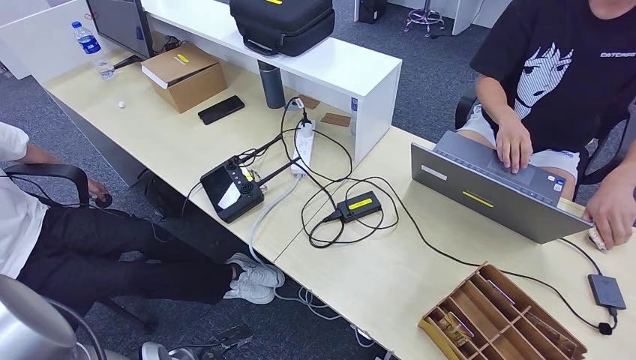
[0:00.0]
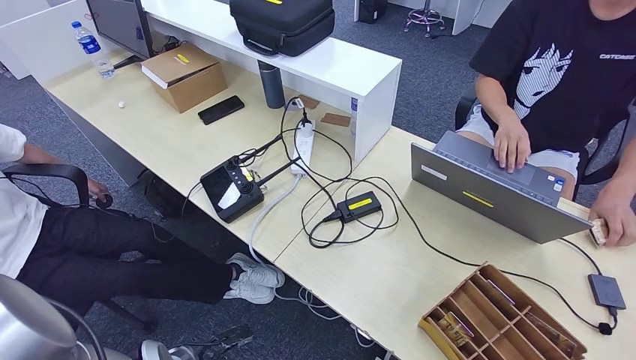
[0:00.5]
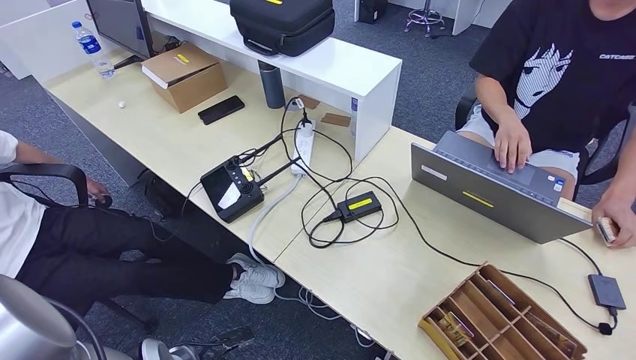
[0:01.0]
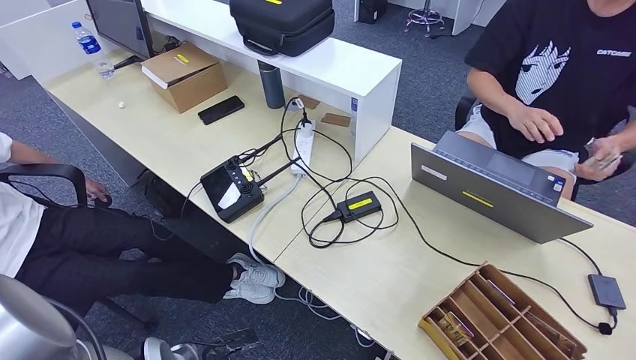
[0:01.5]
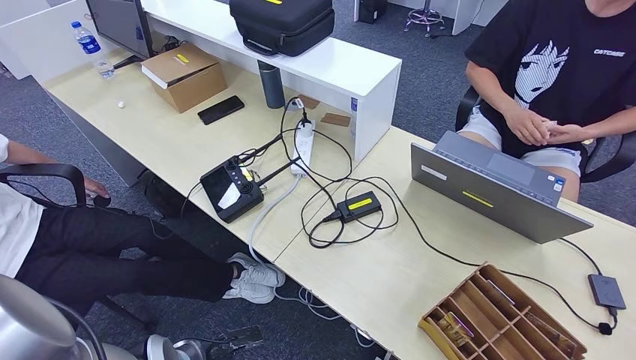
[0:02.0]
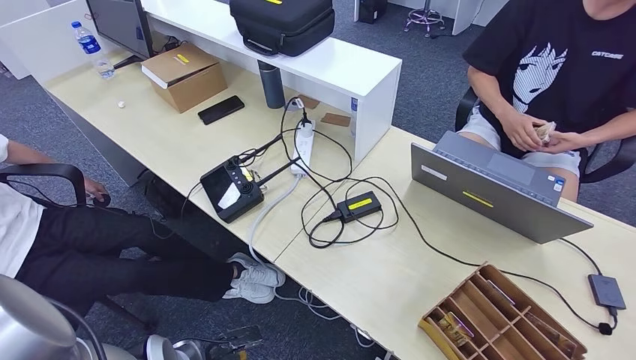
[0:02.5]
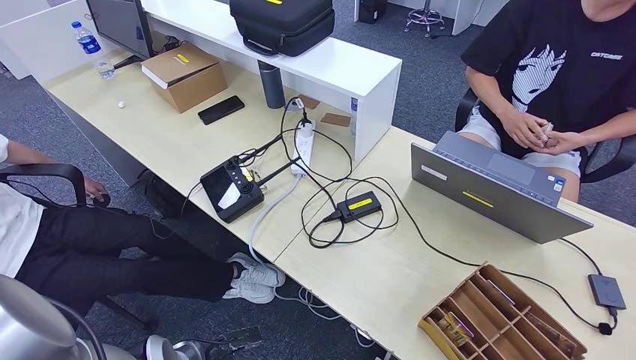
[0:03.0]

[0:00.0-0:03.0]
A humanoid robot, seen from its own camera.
Step, 0:00.0 to 0:03.0: Hand the room key to the person.
0:00.0 to 0:01.5: The hands move only a little.
0:01.5 to 0:03.0: Both hands stay about where they are.

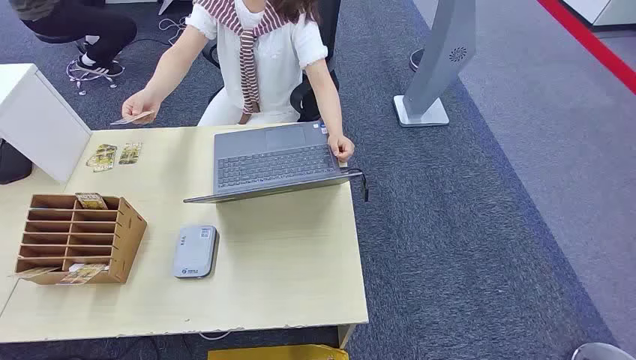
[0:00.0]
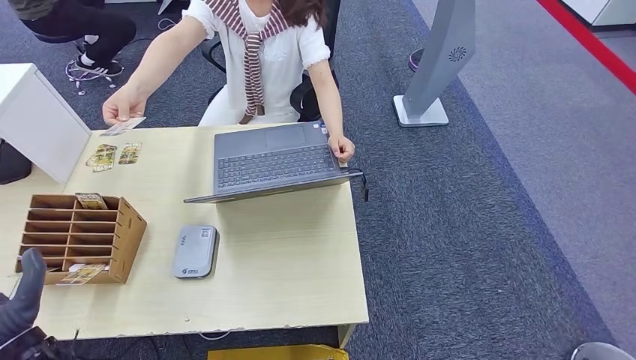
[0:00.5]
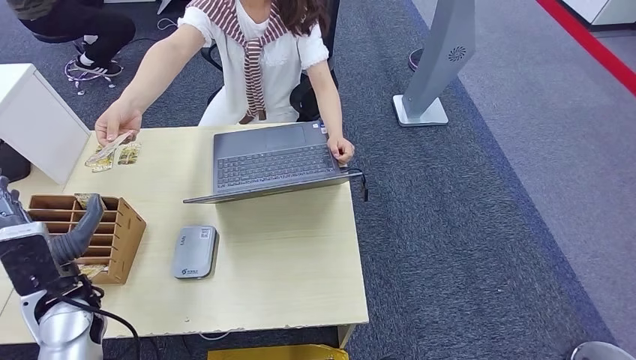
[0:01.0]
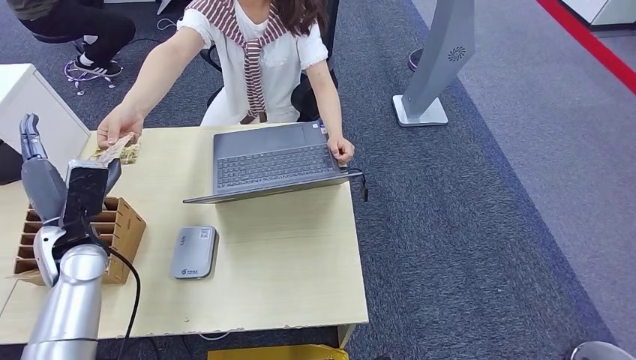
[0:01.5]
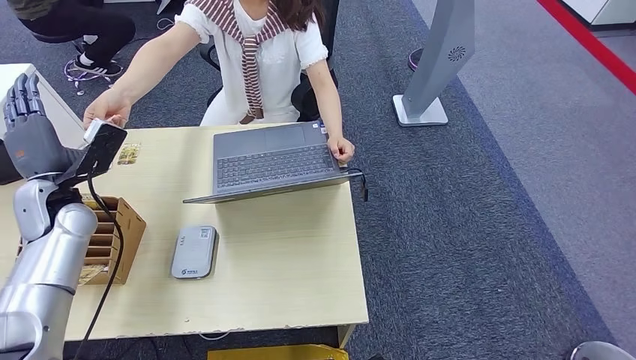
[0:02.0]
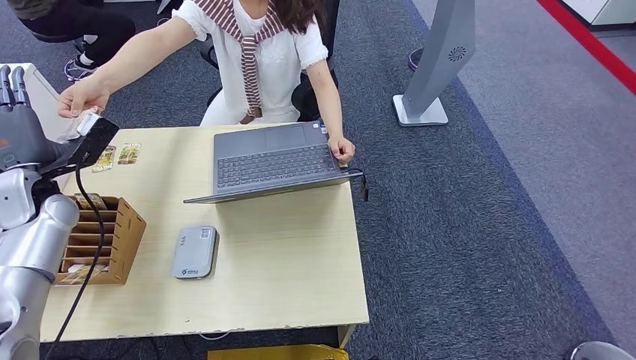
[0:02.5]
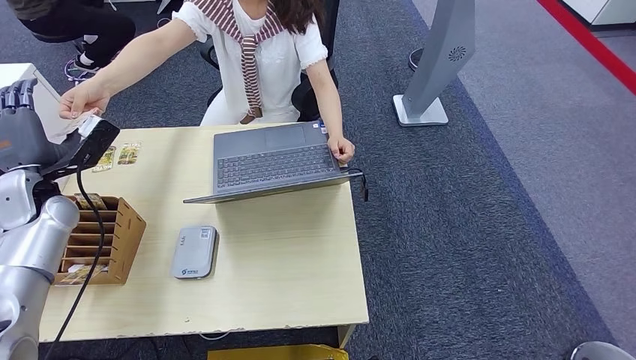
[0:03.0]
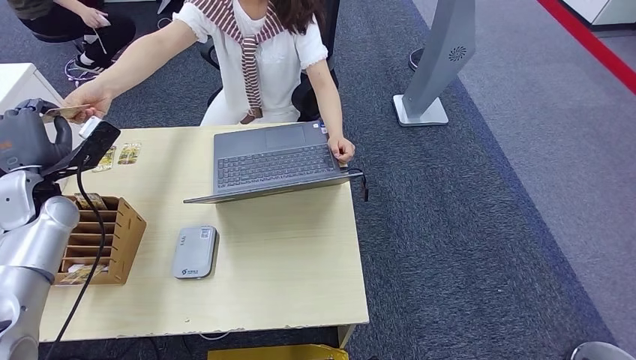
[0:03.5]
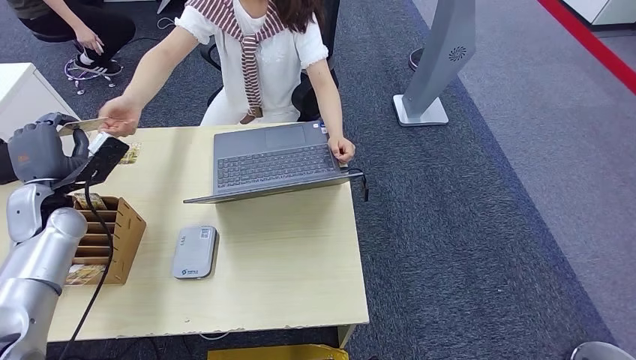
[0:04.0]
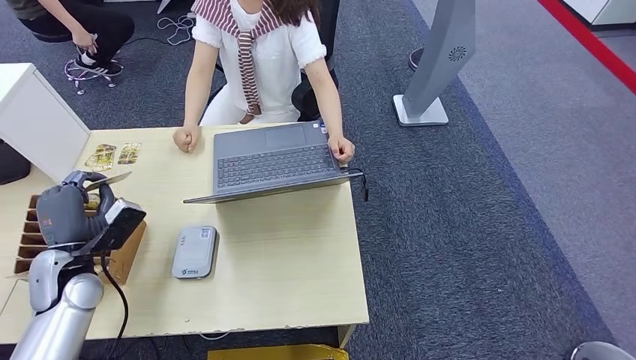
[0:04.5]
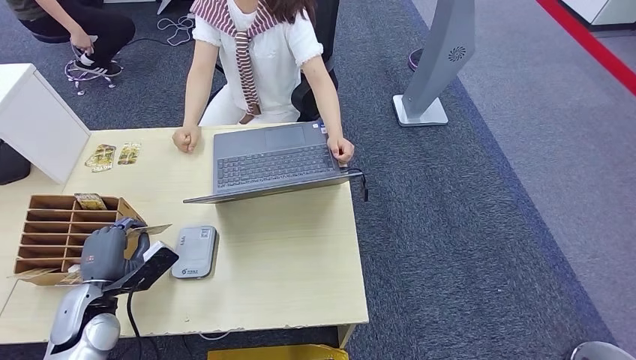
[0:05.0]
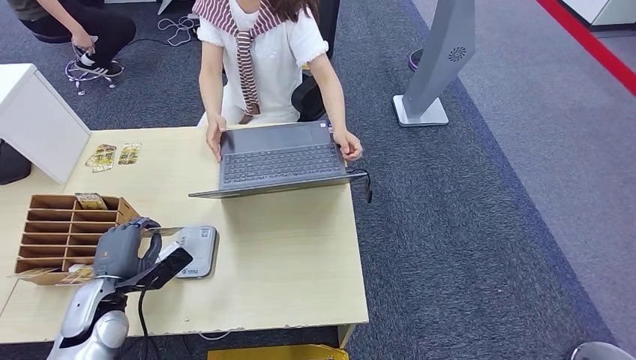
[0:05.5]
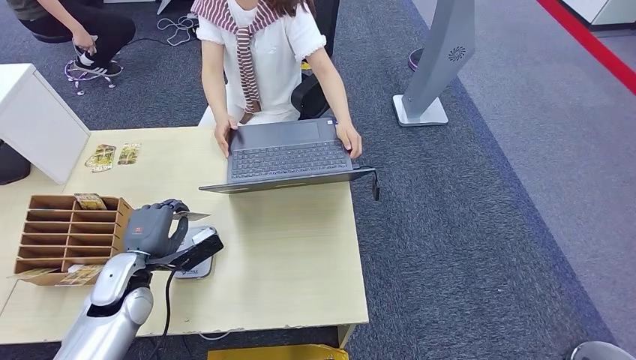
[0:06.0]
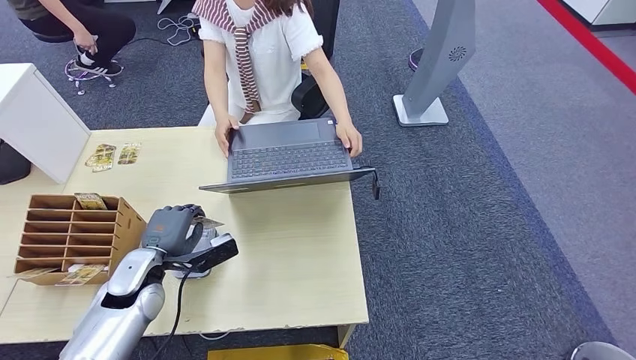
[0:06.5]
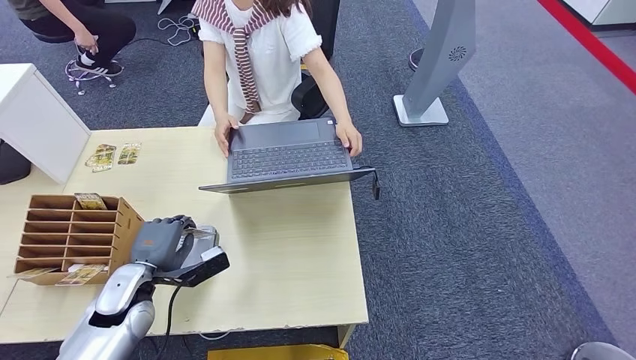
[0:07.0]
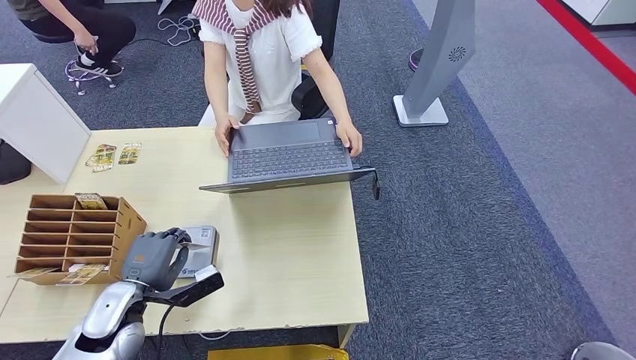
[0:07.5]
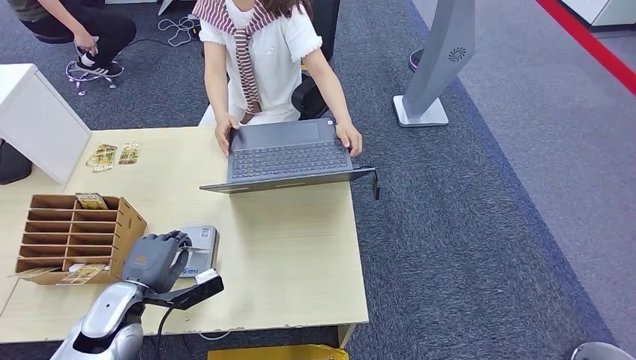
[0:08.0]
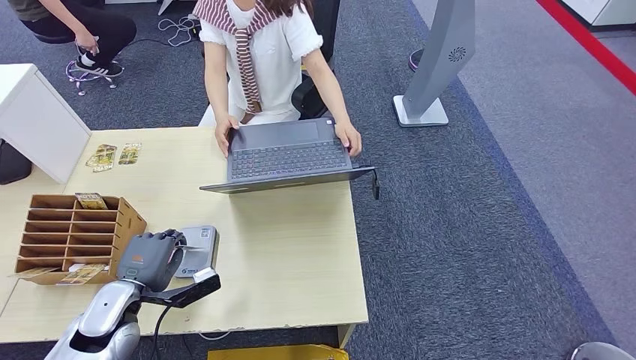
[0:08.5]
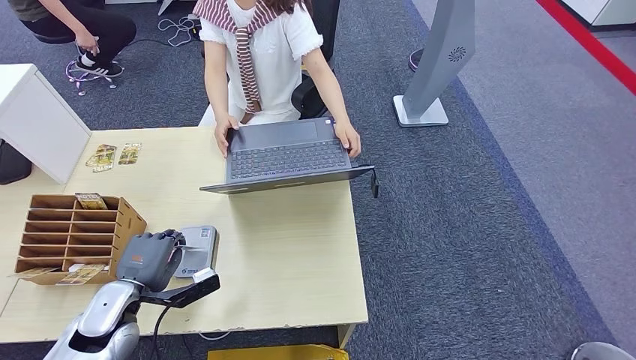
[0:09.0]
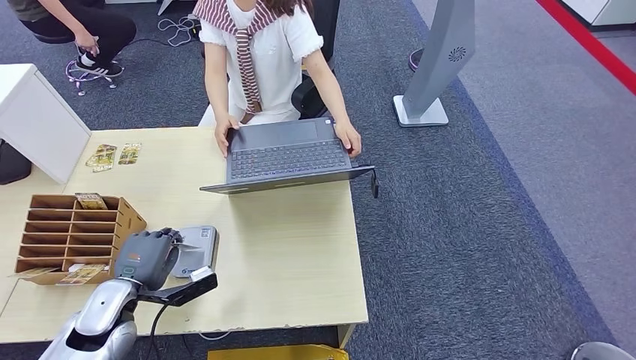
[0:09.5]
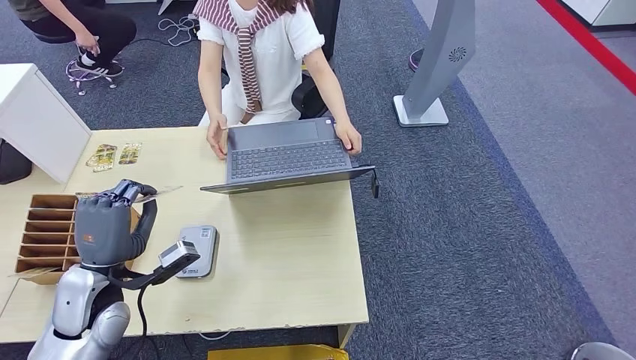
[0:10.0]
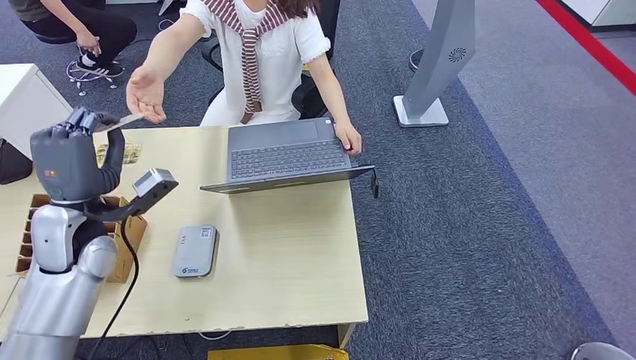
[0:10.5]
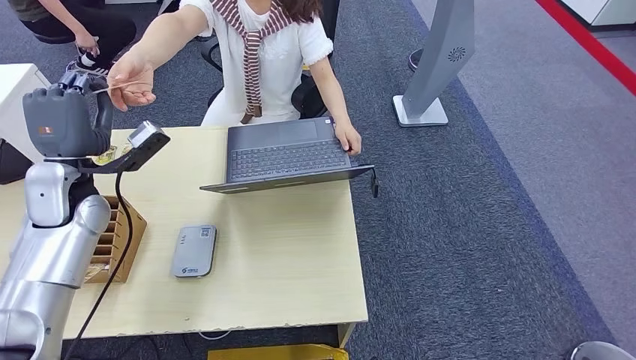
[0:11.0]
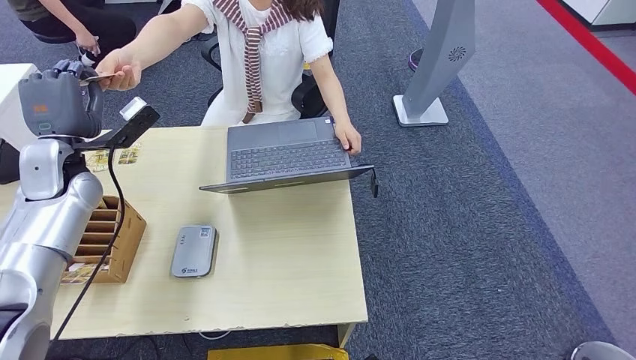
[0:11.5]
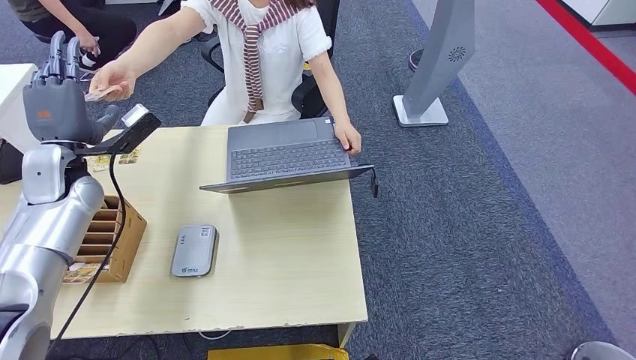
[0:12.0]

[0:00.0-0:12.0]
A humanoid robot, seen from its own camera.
Step, 0:00.0 to 0:04.5: Take the ID card from the person's hand.
Step, 0:05.0 to 0:09.0: Place the ID card on the card reader.
Step, 0:09.5 to 0:12.0: Hand the ID card to the person.
0:02.0 to 0:04.0: The hands make only small movements.
0:06.0 to 0:08.0: The left hand heads backward, covering about 5 cm.
0:08.0 to 0:10.0: The left hand moves upward, about 5 cm.

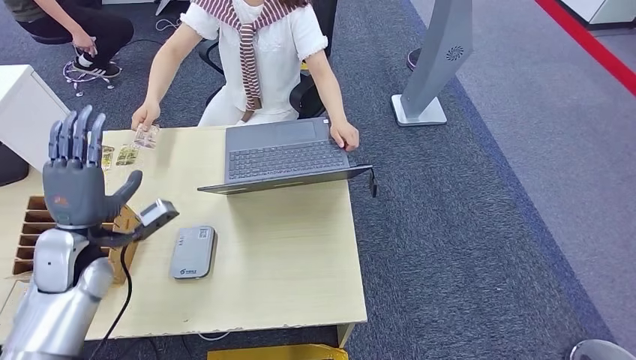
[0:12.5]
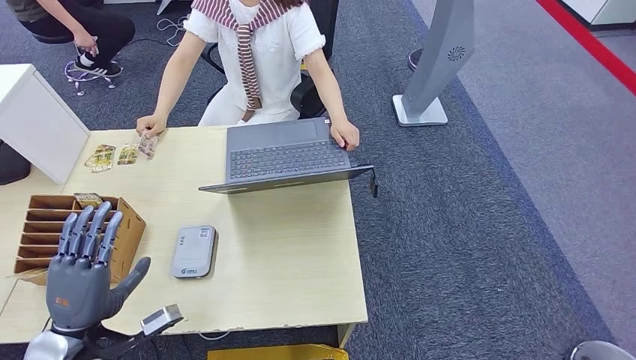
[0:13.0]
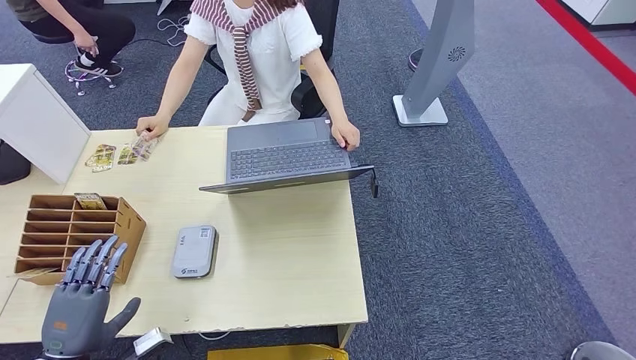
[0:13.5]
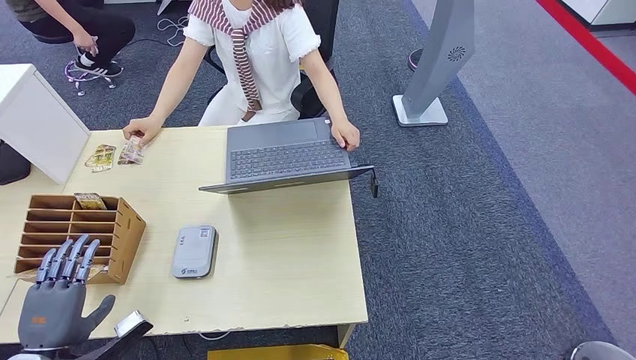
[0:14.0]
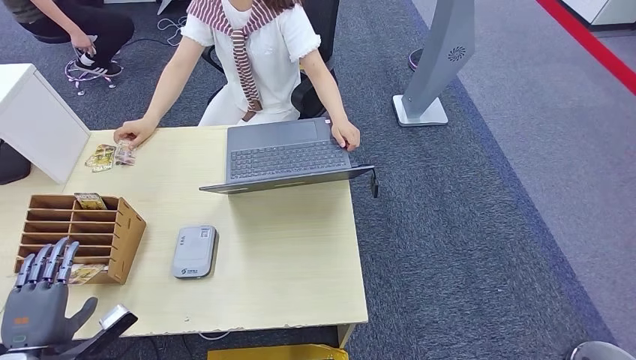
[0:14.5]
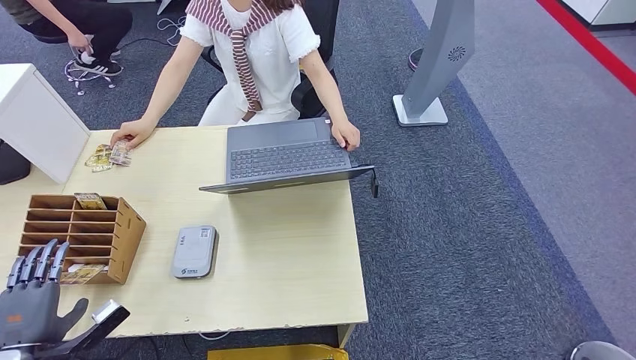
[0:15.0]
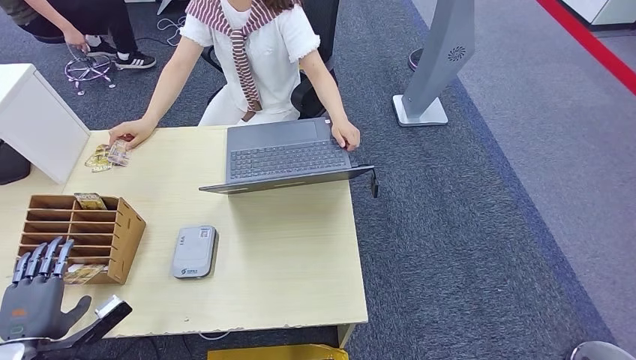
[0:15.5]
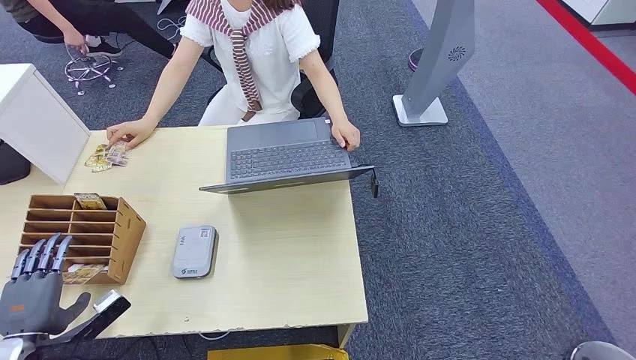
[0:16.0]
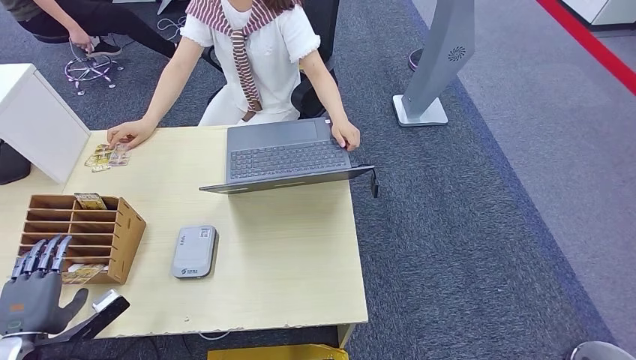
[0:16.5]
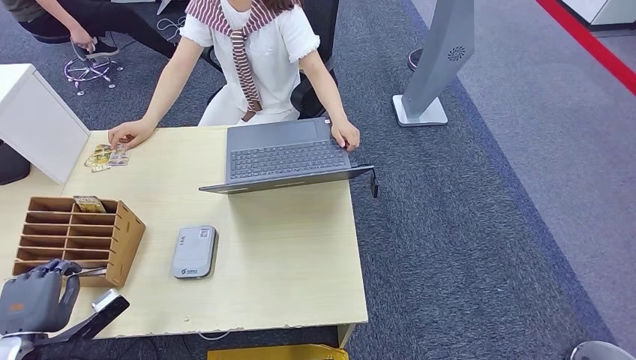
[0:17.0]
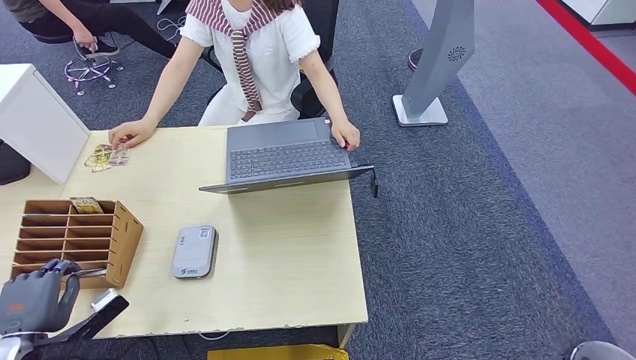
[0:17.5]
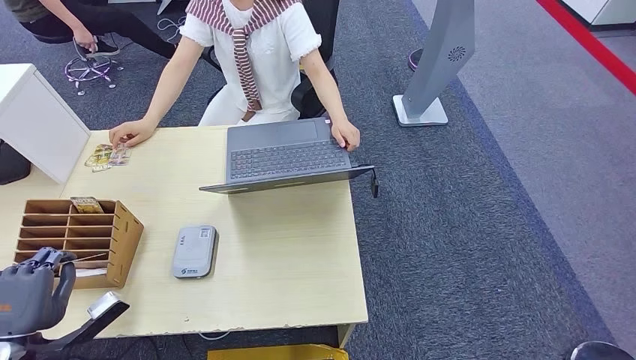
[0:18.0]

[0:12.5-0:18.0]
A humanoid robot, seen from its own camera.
0:12.5 to 0:14.5: The left hand goes roughly 20 cm backward, downward and to the left.
0:14.5 to 0:18.0: The hands make only small movements.
